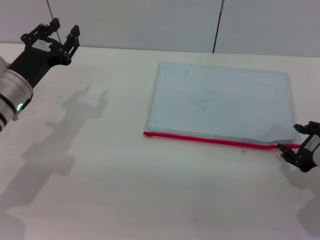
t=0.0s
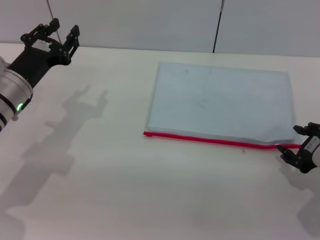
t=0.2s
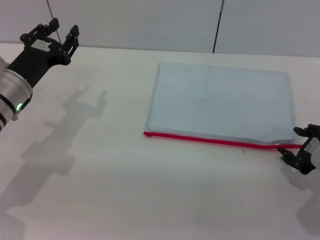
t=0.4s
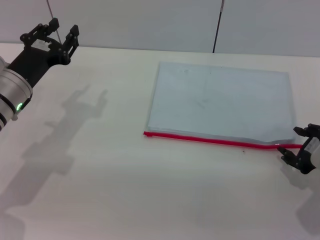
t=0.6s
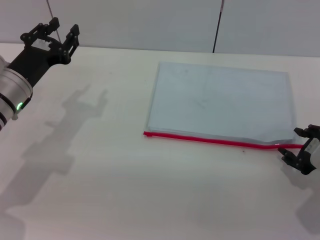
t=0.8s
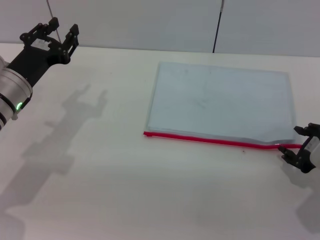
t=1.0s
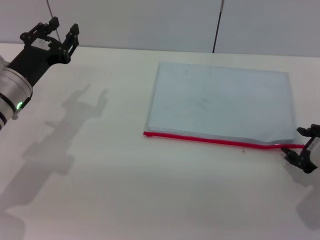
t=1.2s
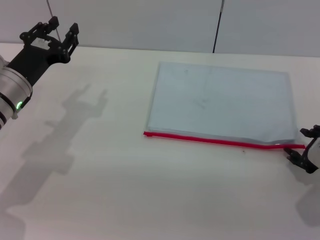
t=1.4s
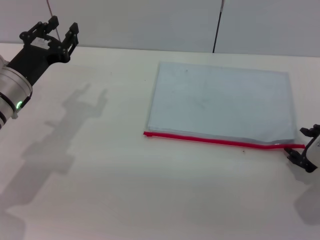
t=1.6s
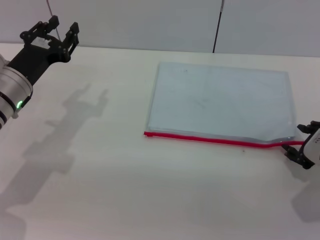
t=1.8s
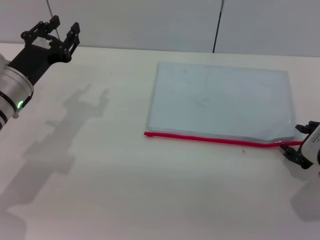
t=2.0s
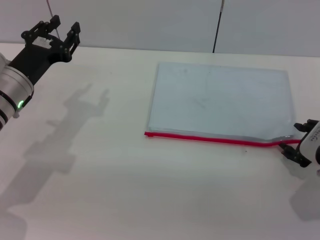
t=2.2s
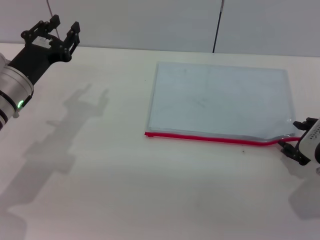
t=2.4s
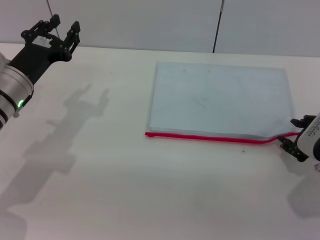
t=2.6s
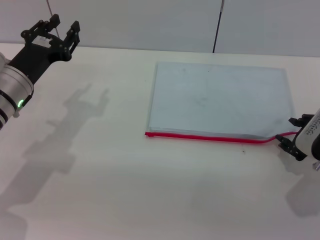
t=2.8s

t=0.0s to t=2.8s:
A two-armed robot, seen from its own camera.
t=0.0s to t=2.8s: The grippers stay close to where they were, moving slightly.

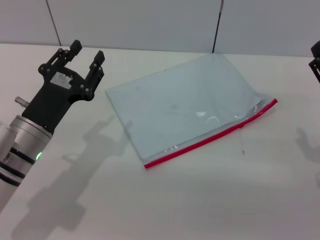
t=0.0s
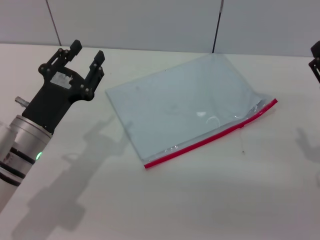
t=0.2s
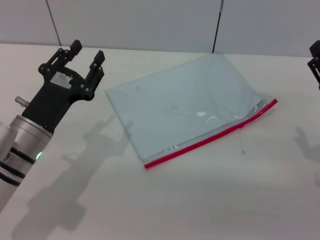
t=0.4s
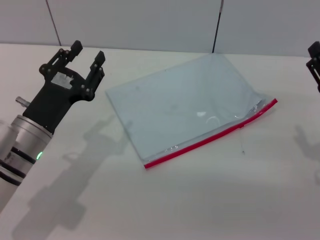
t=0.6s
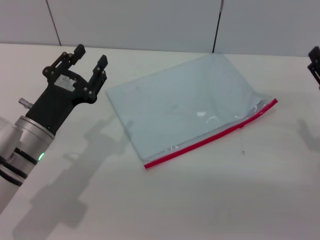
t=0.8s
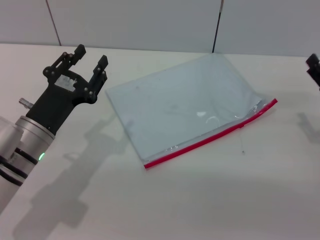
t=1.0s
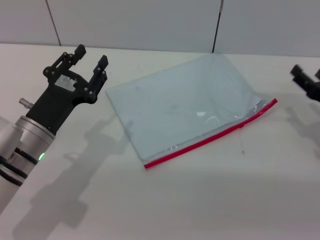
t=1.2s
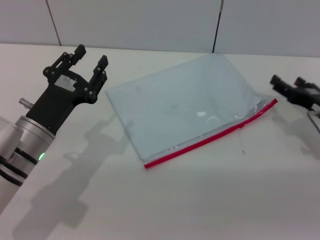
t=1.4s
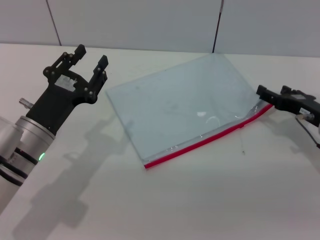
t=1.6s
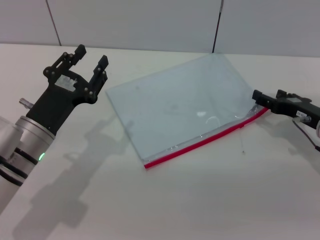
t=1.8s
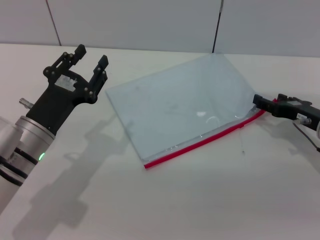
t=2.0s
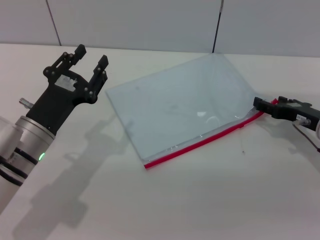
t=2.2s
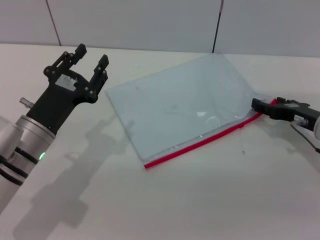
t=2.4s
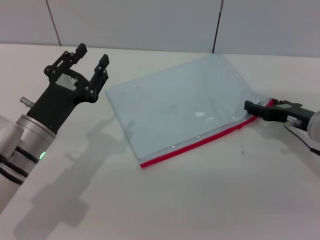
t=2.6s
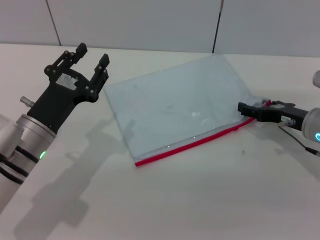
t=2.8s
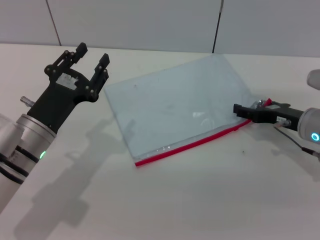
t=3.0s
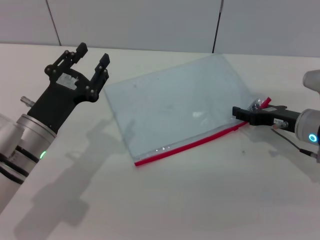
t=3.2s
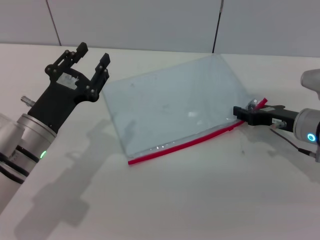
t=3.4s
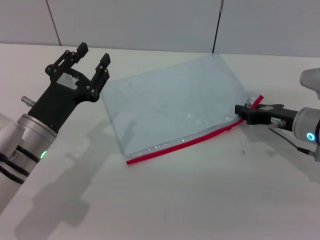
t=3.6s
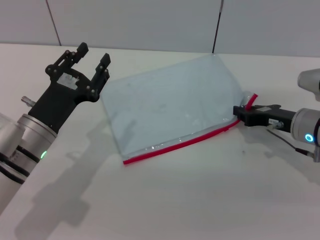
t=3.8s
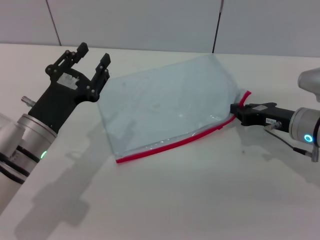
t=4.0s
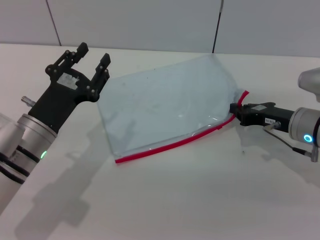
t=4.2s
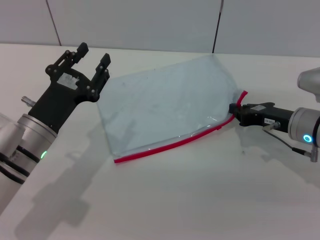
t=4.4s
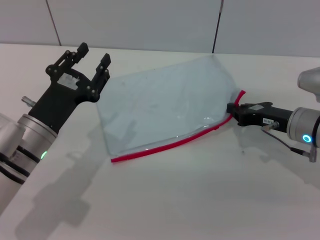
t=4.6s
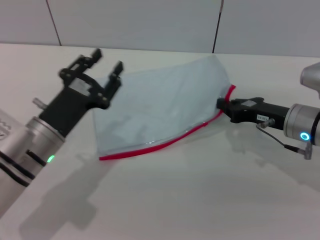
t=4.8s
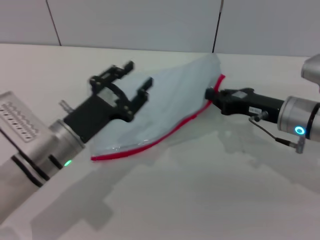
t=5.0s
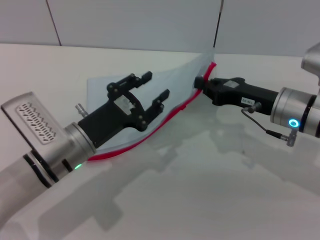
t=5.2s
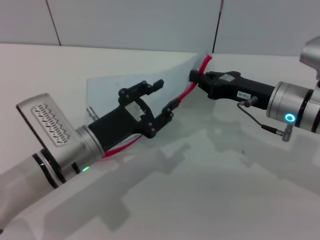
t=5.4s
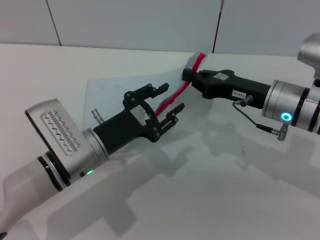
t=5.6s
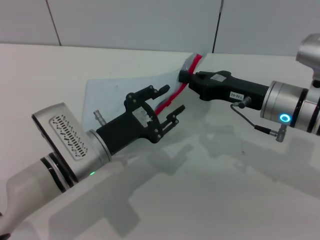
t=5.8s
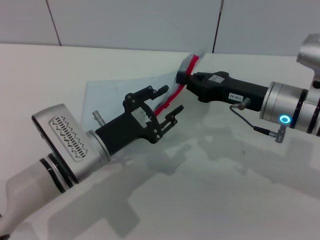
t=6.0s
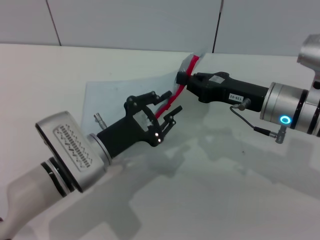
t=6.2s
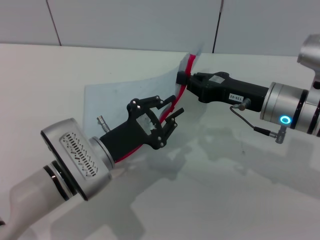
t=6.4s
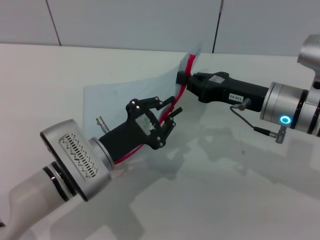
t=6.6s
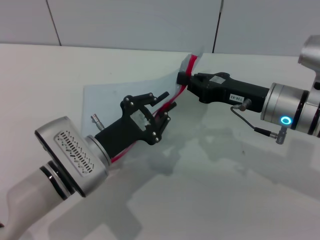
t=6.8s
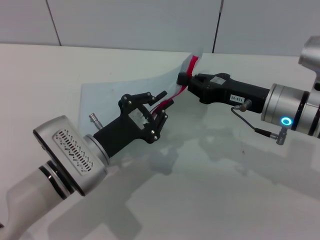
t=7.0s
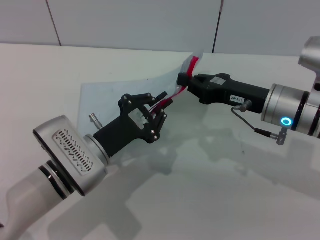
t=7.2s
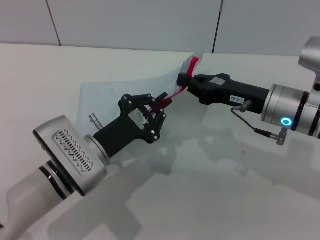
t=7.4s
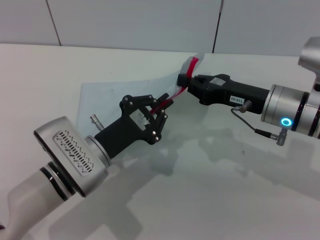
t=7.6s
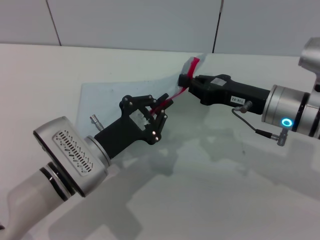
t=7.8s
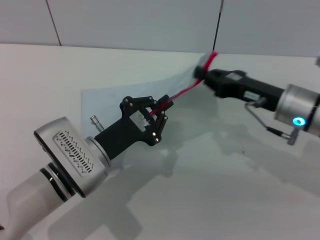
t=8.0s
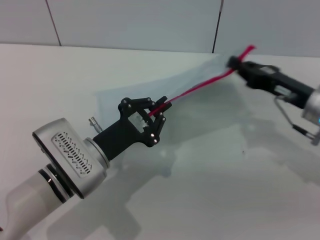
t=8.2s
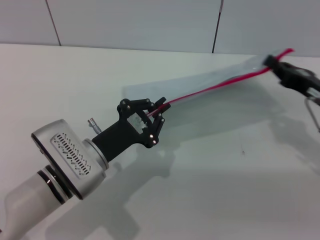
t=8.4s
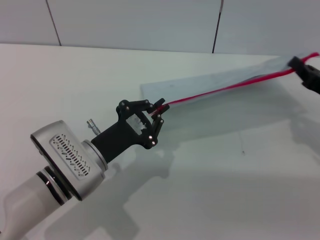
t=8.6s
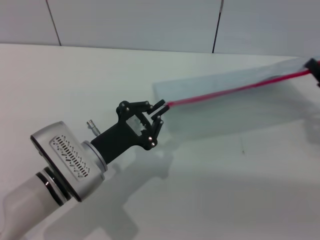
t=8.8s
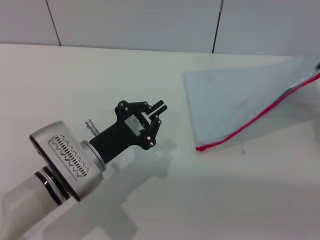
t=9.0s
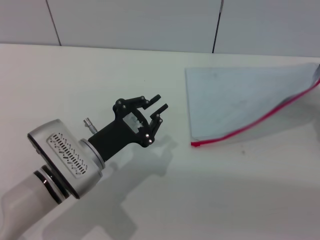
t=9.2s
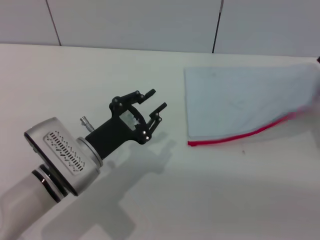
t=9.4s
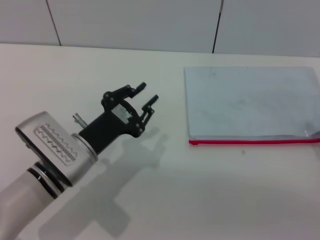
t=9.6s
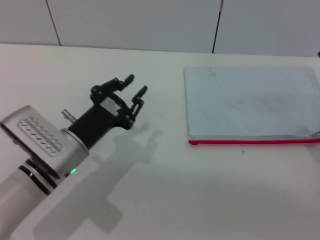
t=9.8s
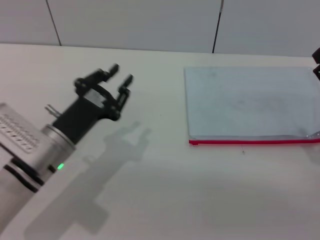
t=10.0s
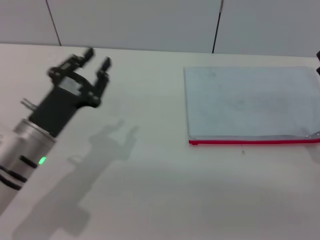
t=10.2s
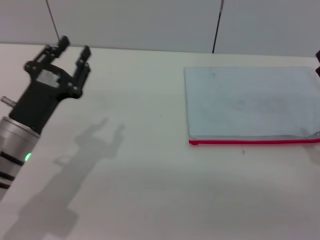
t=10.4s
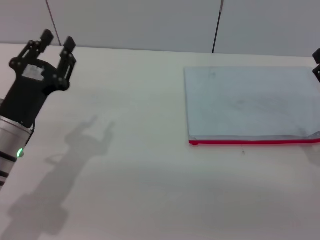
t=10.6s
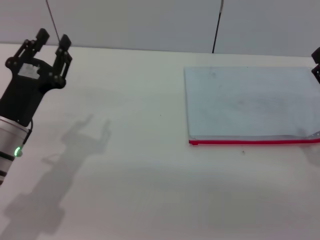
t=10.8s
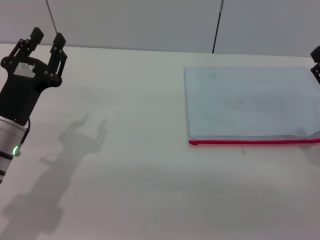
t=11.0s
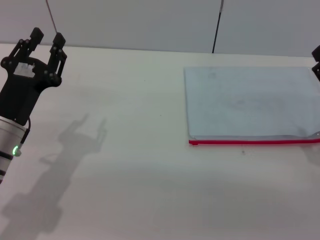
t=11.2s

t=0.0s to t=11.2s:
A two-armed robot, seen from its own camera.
Step, t=0.0s to t=5.2s: Pick up the transparent plastic bag with the right gripper.
Step, t=5.4s to t=8.8s: Pulling up the zipper on the transparent plastic bag with the left gripper to close it.
Step, t=9.0s to t=9.8s: Place the transparent plastic bag.
t=0.0s to t=1.6s: The right gripper goes roughly 10 cm forward.
t=1.6s to t=3.2s: The grippers stay close to where they were, moving slightly.
t=3.2s to t=4.8s: The right gripper closes up.
t=4.8s to t=6.4s: The left gripper travels to the right by approximately 5 cm, while the right gripper moves some 5 cm.
t=6.4s to t=8.0s: The left gripper closes.
t=8.0s to t=9.6s: The right gripper moves to the right and backward, approximately 15 cm. Meanwhile the left gripper opens its fingers.
t=9.6s to t=11.2s: The left gripper moves to the left, roughly 10 cm, while the right gripper opens.
